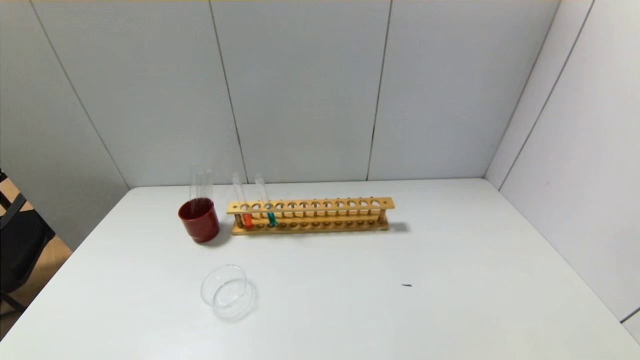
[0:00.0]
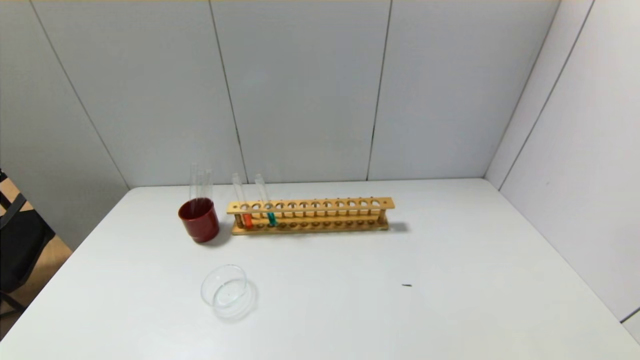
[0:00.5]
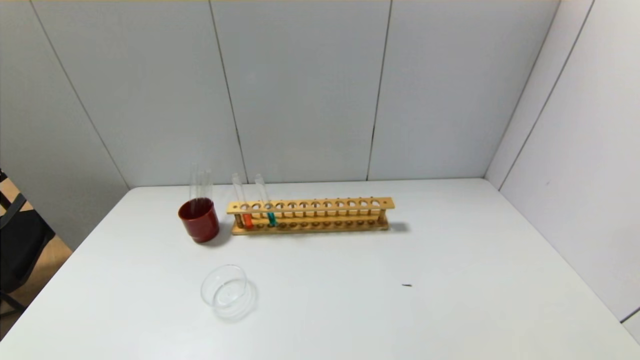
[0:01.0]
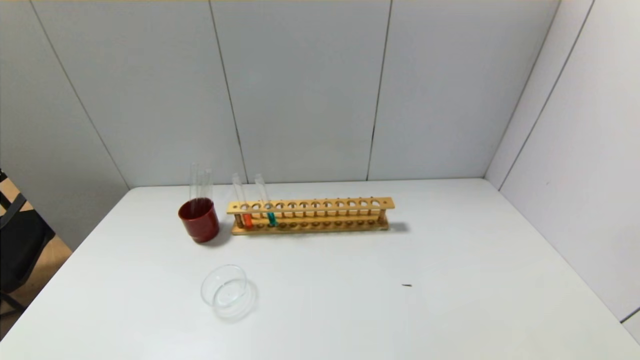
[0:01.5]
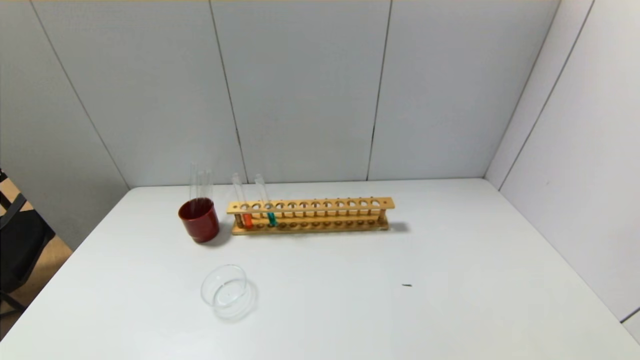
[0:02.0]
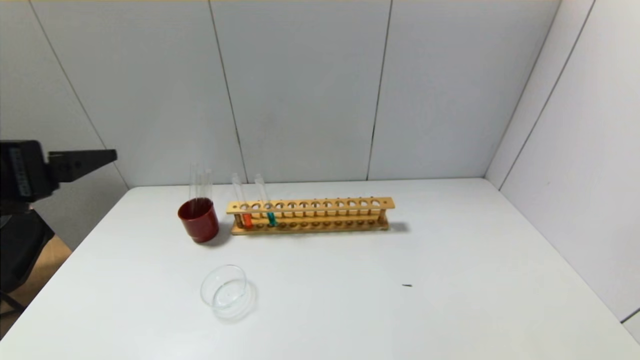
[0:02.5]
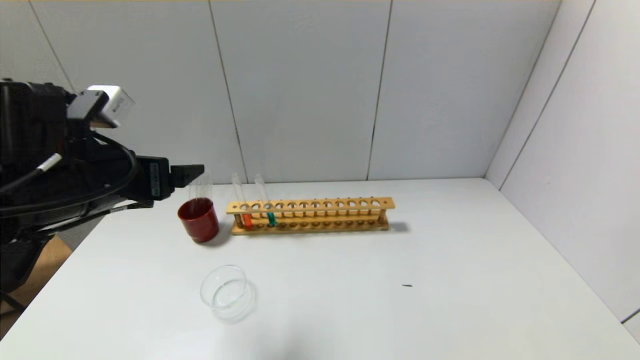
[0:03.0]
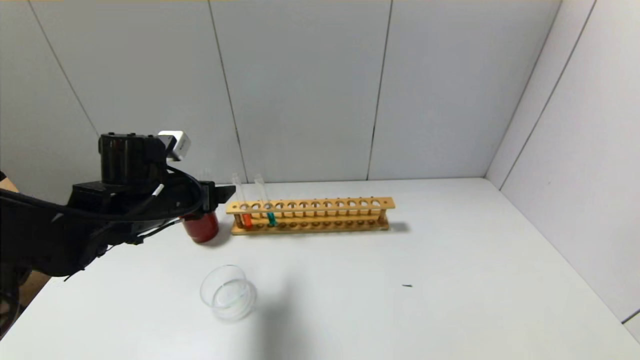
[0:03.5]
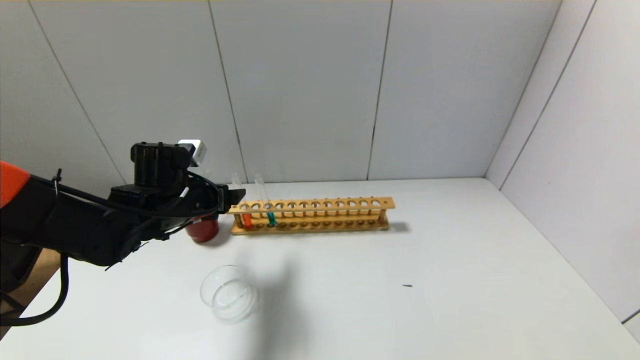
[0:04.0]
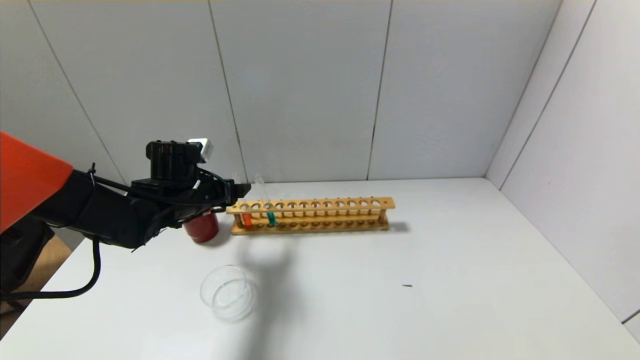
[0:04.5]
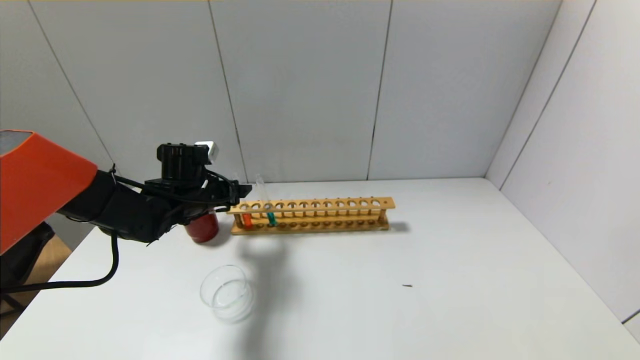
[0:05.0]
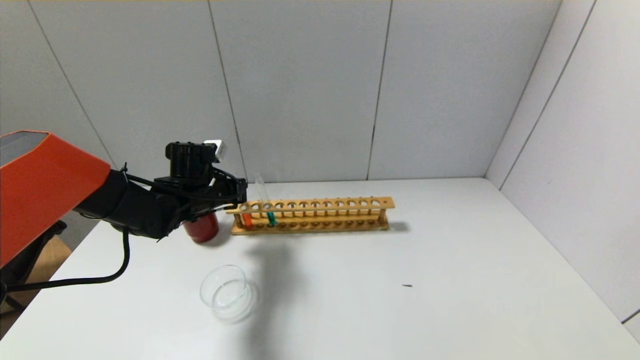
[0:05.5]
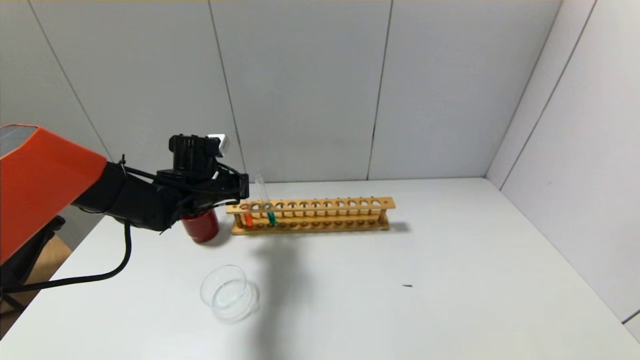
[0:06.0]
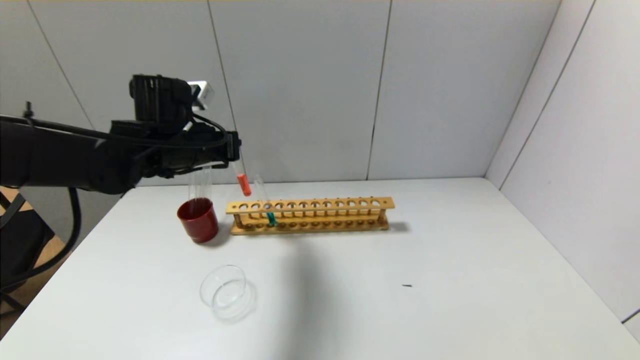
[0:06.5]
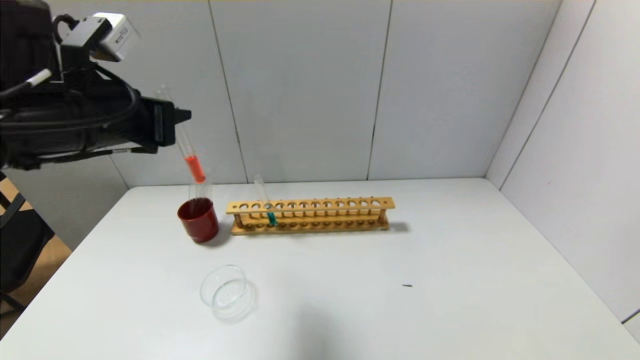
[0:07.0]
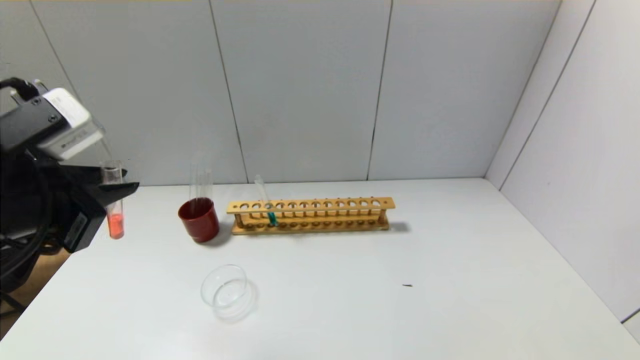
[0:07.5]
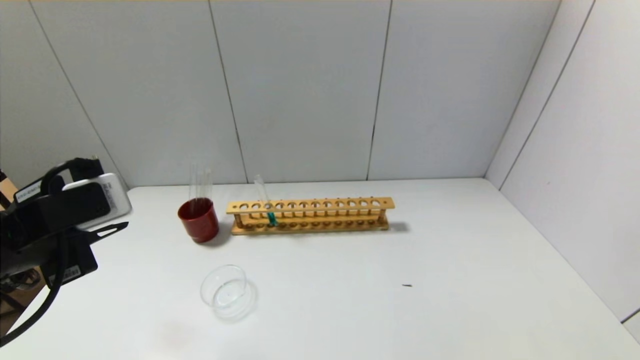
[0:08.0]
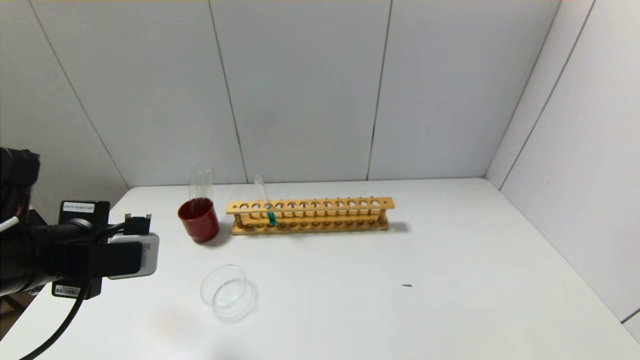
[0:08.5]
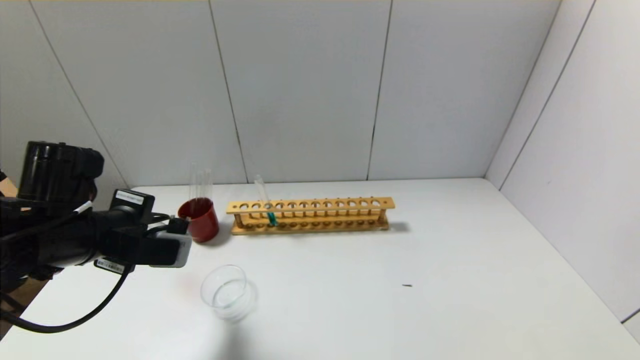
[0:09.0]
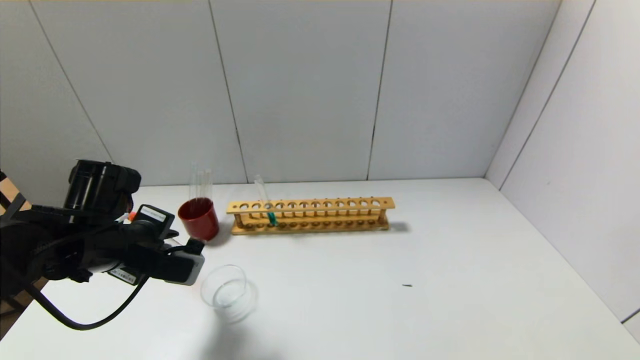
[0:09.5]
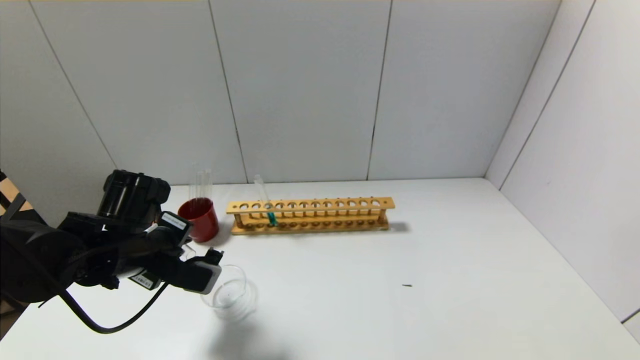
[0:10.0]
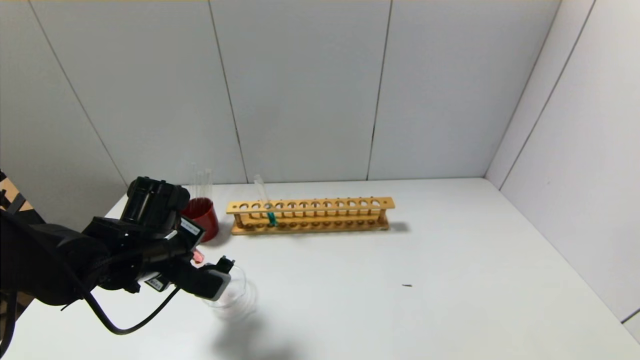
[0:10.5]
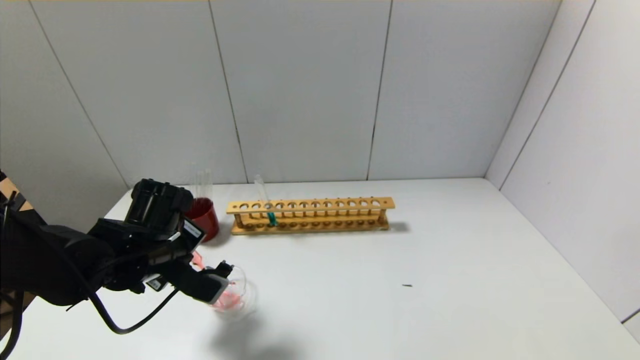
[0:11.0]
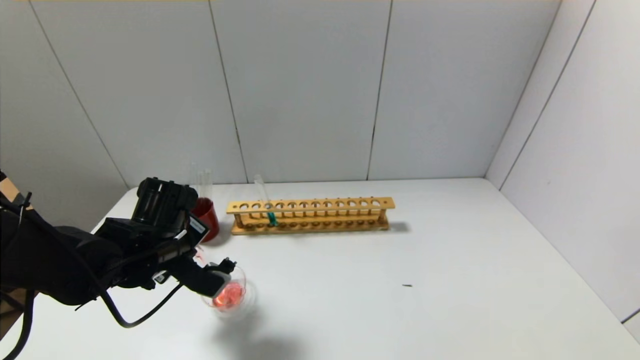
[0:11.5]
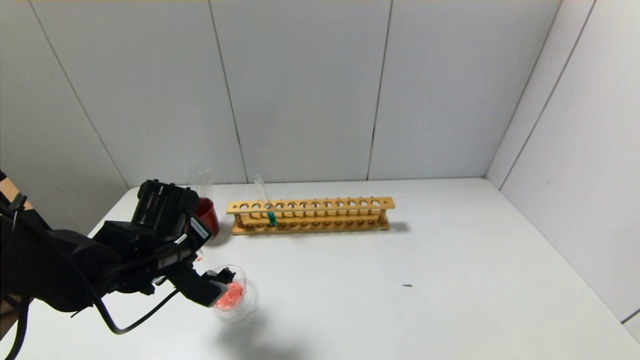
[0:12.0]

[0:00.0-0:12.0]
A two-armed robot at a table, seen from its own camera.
Step, 0:00.0 to 0:05.5: Grasp the red reagent with the left gripper.
0:02.0 to 0:04.0: The left gripper travels forward by roughly 35 cm.
0:04.0 to 0:06.0: The left gripper travels forward by some 5 cm, and closes its fingers.
0:06.0 to 0:08.0: The left gripper heads backward and upward, covering roughly 25 cm.
0:08.0 to 0:10.0: The left gripper shifts approximately 15 cm downward and forward.

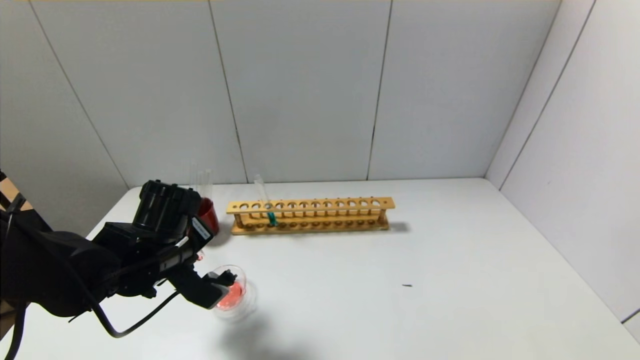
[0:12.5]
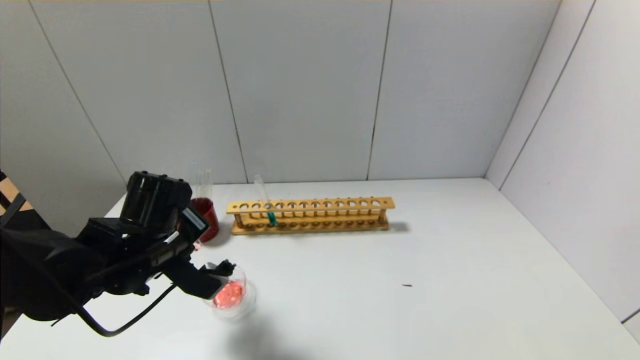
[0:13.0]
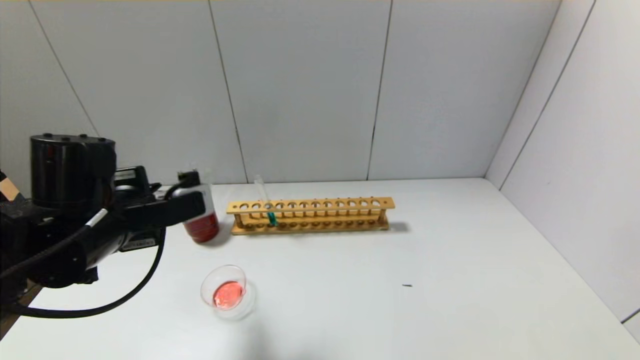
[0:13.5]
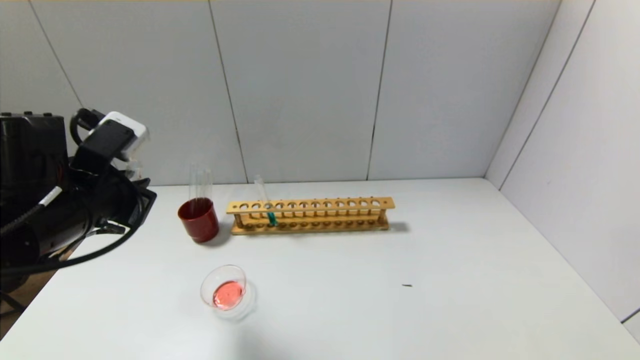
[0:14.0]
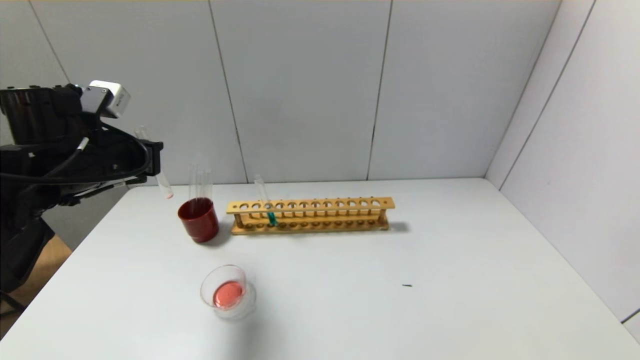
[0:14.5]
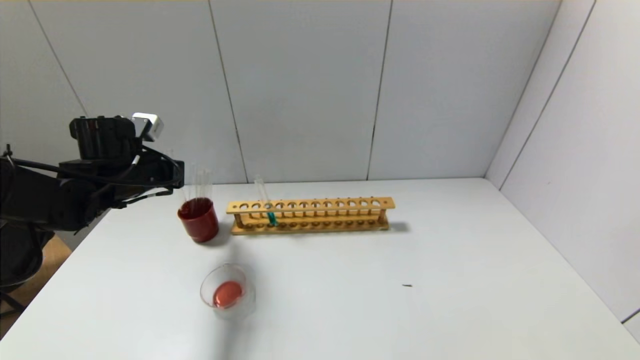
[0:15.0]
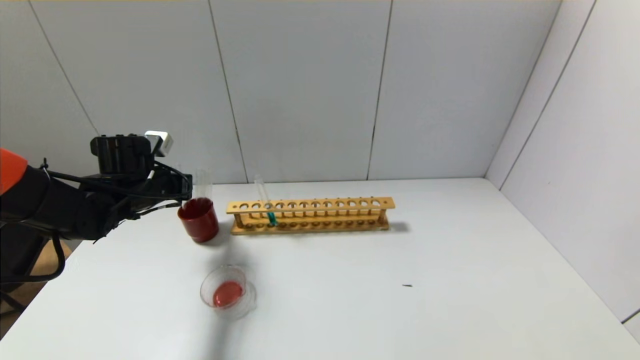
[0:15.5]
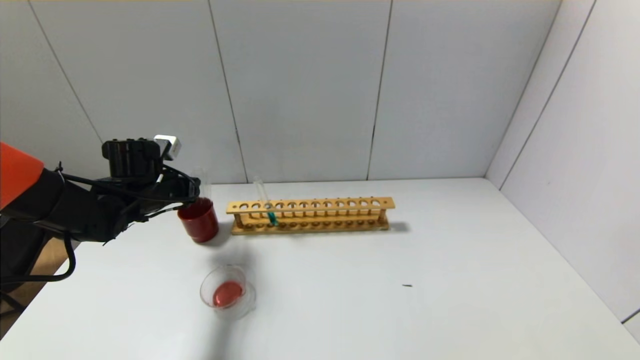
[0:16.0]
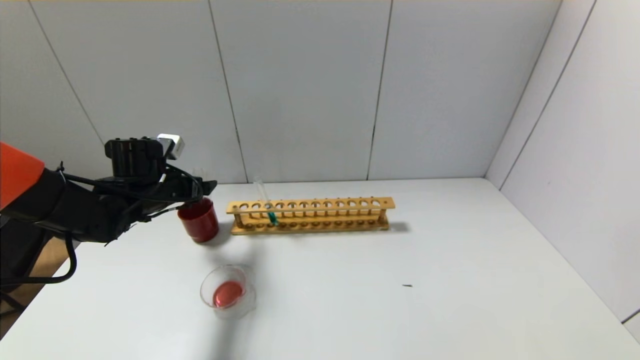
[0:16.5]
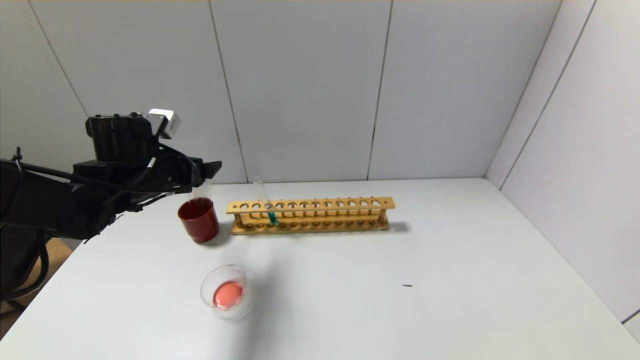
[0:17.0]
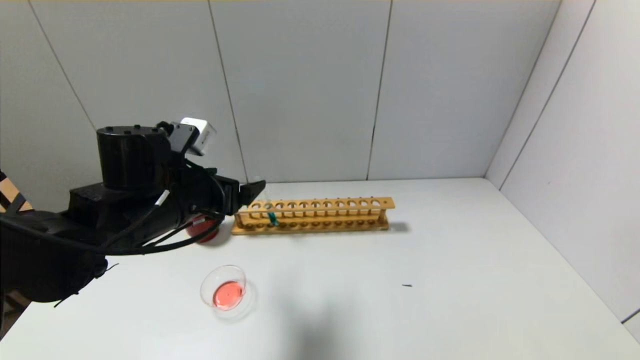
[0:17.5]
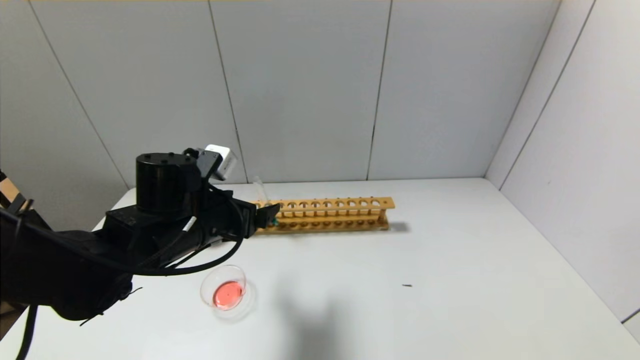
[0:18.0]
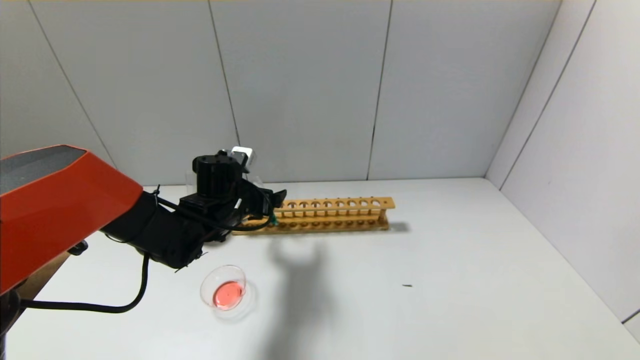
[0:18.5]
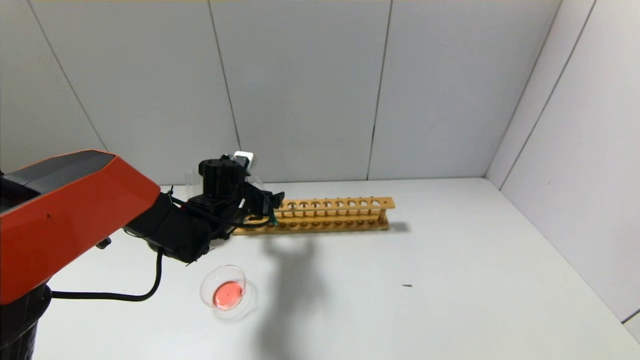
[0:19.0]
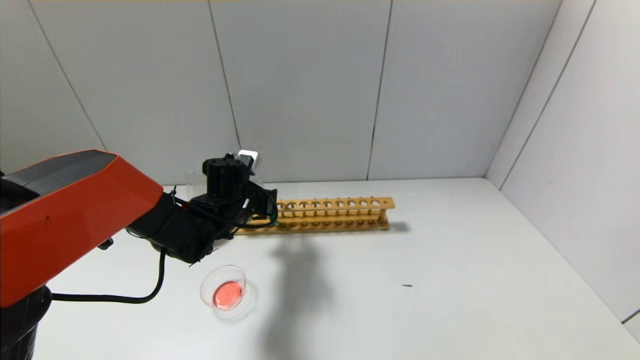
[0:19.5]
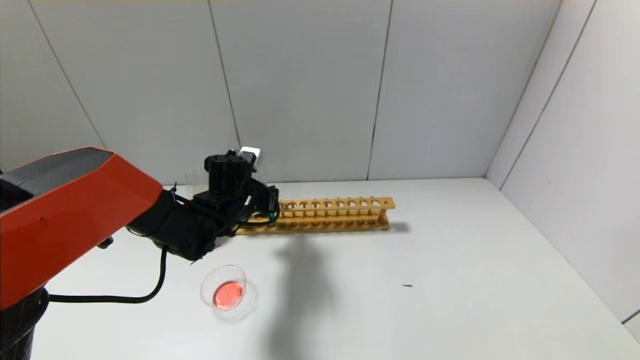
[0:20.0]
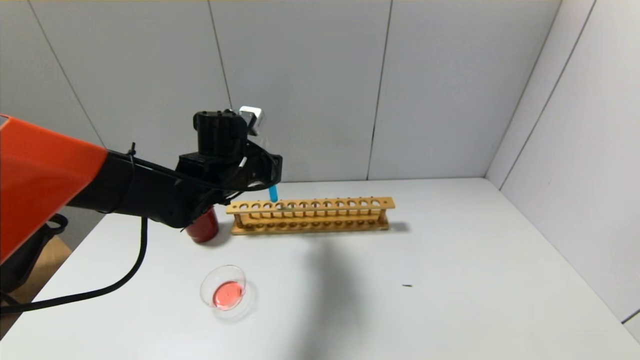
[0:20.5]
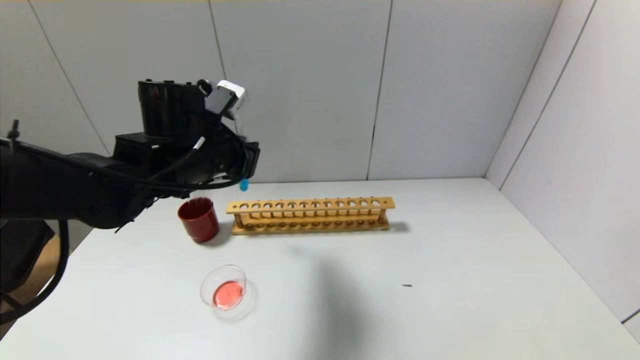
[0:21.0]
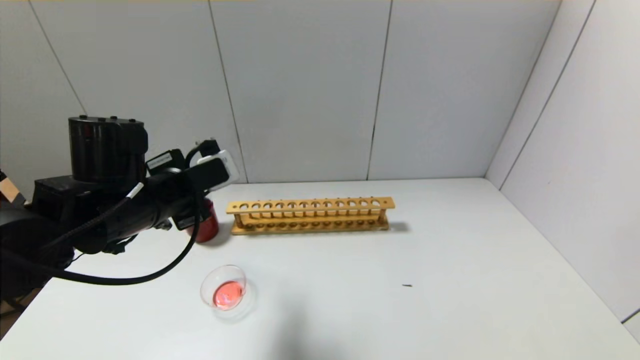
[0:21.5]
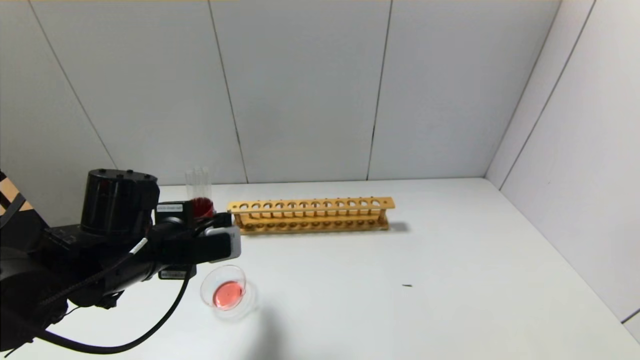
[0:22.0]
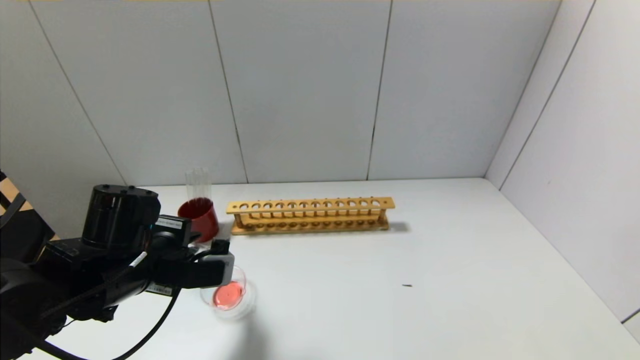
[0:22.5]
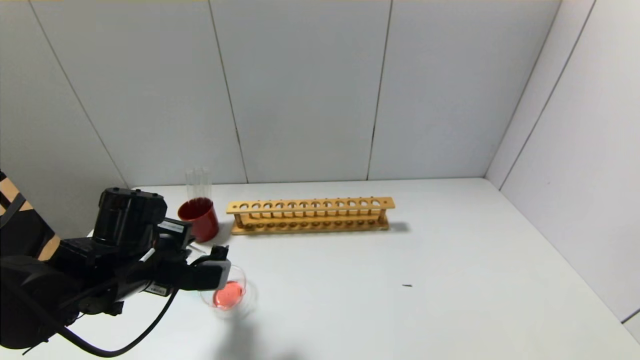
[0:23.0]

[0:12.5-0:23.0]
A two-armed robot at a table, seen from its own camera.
Step, 0:13.5 to 0:16.0: Place the test tube into the brown cup with the left gripper.
Step, 0:16.5 to 0:19.5: Grasp the blue reagent with the left gripper.
0:12.5 to 0:14.5: The left gripper shifts approximately 15 cm upward and to the left.
0:14.5 to 0:16.5: The left gripper travels downward and forward by approximately 10 cm, and opens up.
0:16.5 to 0:19.0: The left gripper goes roughly 10 cm to the right.
0:19.0 to 0:21.0: The left gripper moves upward and backward, about 15 cm, and closes.
0:21.0 to 0:23.0: The left gripper shifts about 15 cm downward, backward and to the left.
